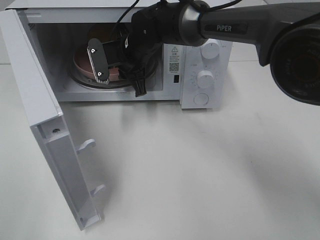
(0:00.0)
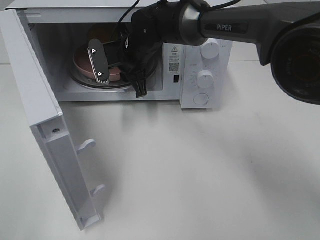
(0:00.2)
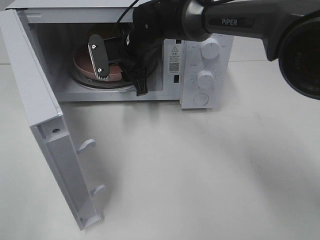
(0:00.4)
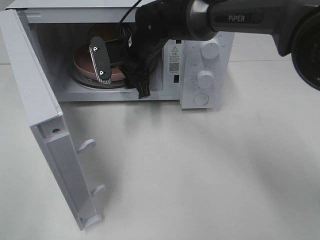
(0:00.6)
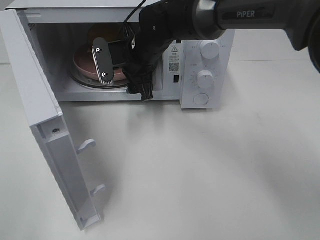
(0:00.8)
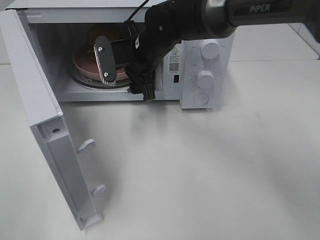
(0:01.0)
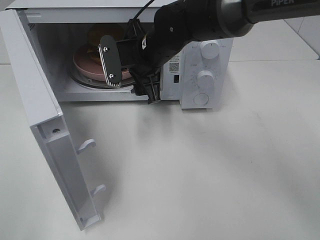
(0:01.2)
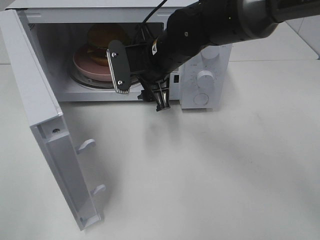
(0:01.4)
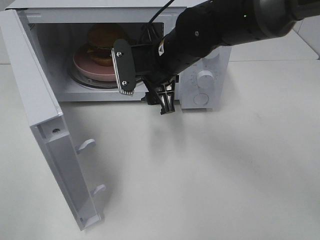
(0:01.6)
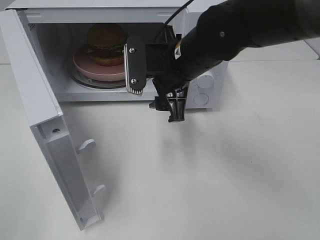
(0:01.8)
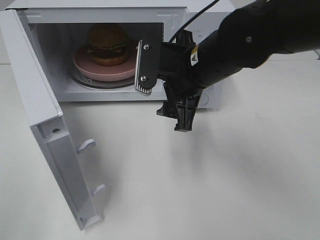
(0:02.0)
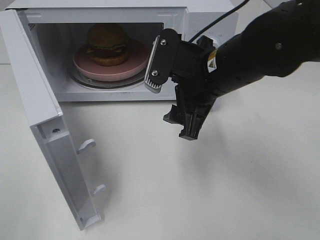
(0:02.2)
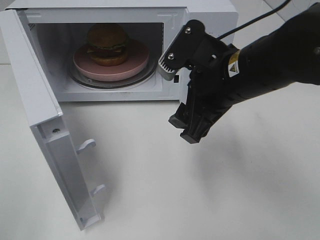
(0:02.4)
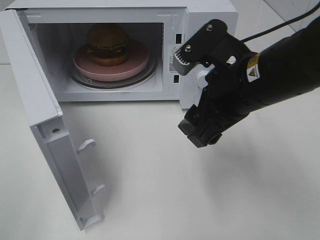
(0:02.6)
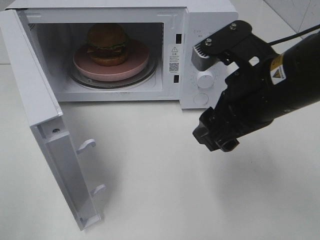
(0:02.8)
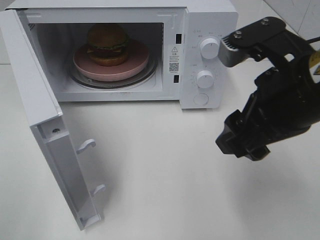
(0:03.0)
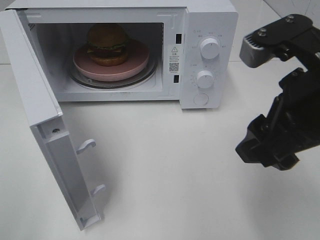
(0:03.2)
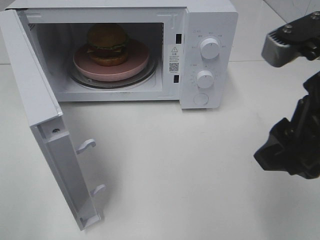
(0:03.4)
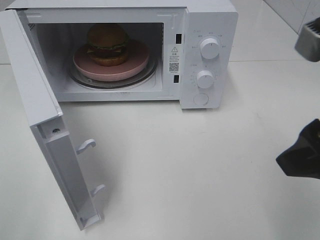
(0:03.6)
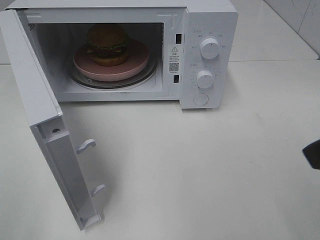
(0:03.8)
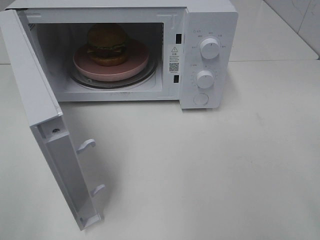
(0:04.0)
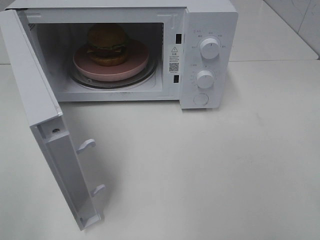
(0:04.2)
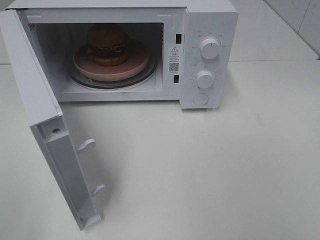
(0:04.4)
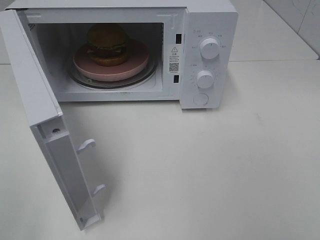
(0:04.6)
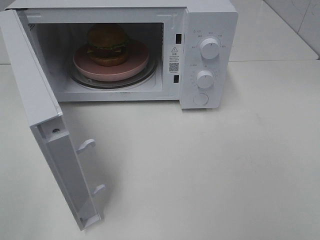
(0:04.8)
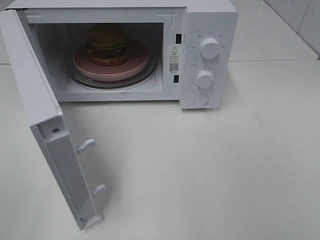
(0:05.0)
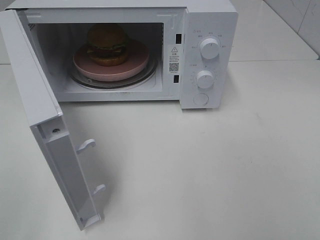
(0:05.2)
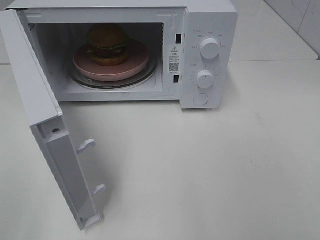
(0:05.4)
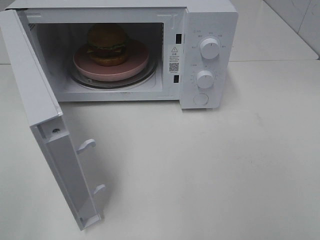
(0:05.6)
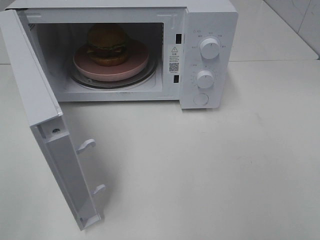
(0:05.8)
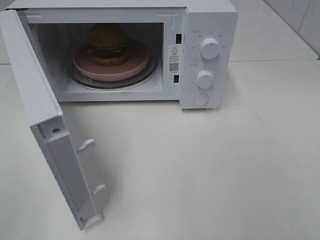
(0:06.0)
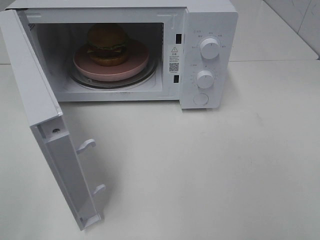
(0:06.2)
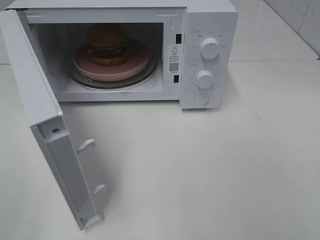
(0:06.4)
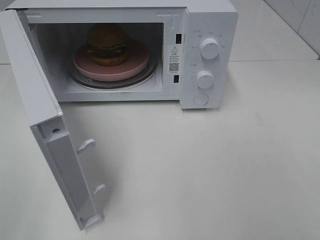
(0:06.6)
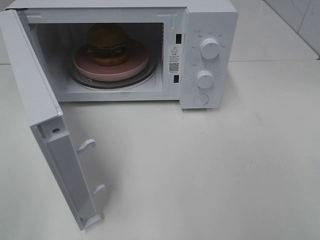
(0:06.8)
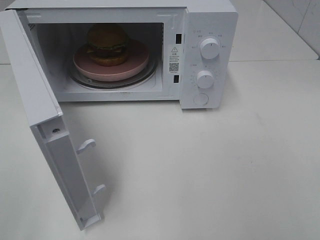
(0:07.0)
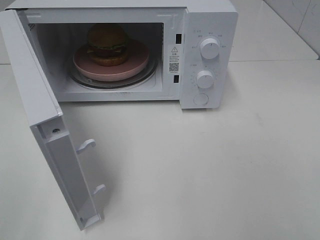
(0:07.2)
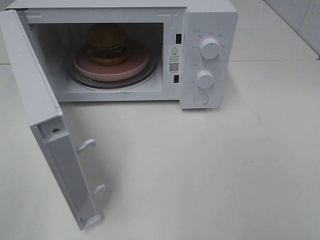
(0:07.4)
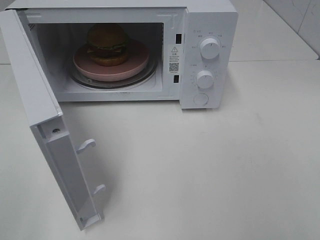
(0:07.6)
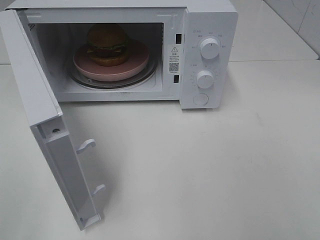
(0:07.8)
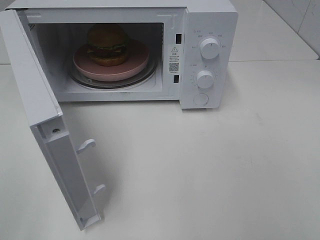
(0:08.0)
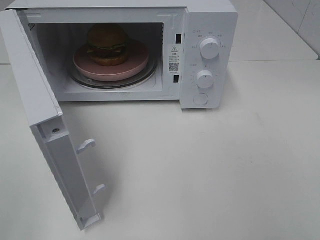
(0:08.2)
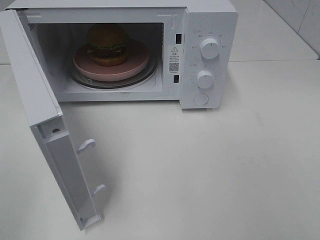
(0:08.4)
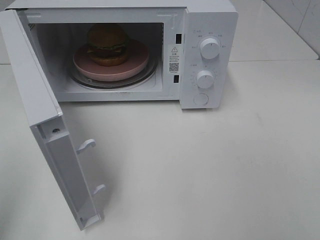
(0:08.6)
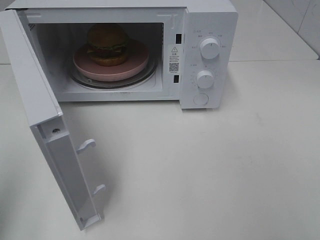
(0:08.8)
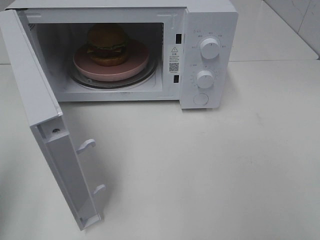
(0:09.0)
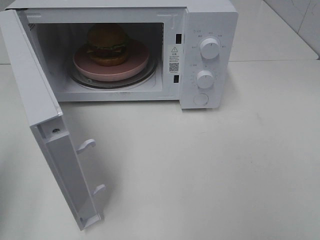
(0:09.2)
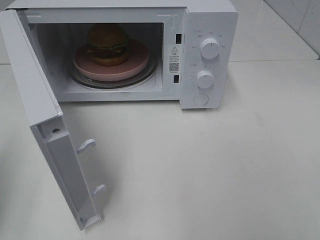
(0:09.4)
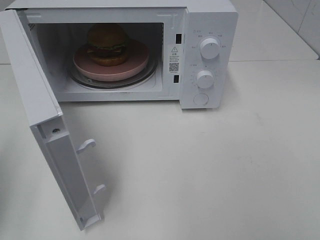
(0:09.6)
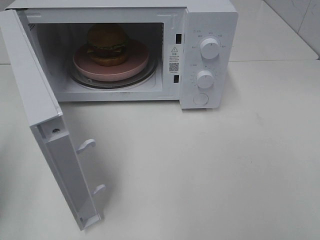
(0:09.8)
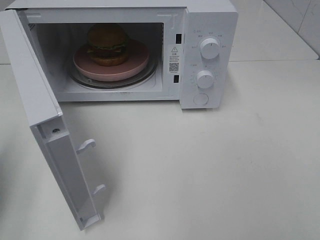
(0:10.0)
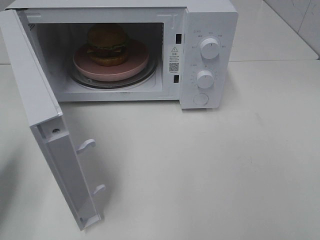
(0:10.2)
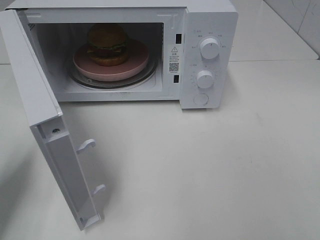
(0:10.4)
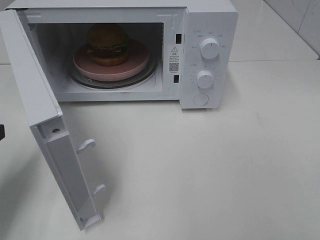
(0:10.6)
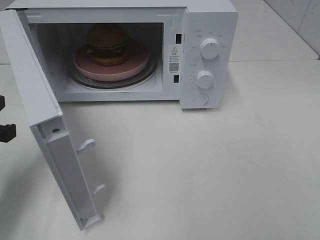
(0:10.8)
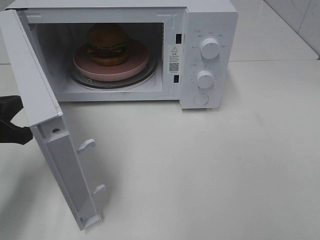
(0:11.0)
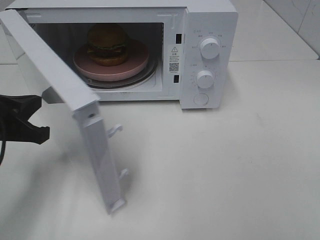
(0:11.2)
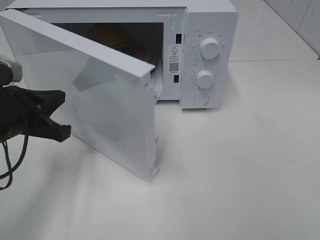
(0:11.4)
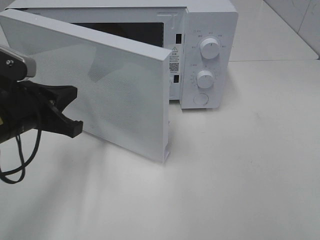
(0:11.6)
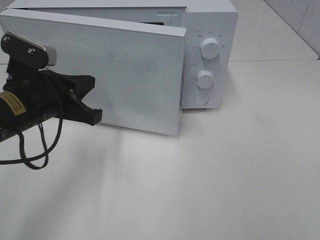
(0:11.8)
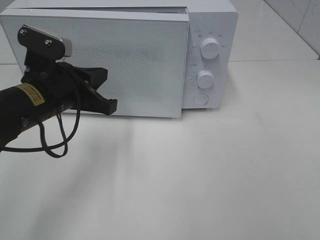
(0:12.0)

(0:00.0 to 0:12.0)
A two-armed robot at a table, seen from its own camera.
Task of the whole recording: Heat the burger.
0:00.0 - 0:01.6: The right gripper is displaced backward and to the right by about 10 cm, and opens its fingers.
0:01.6 - 0:03.0: The right gripper moves backward, to the right and upward, some 20 cm.
0:03.0 - 0:04.4: The right gripper travels backward, to the right and upward by some 20 cm.
0:06.0 - 0:07.6: The two grippers keep their place.
0:09.0 - 0:10.4: The left gripper travels downward and forward by roughly 15 cm.
0:10.4 - 0:12.0: The left gripper is displaced to the right and forward by some 15 cm.

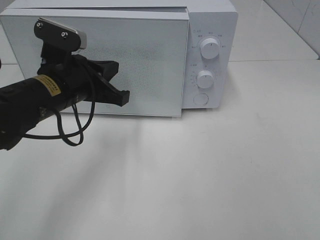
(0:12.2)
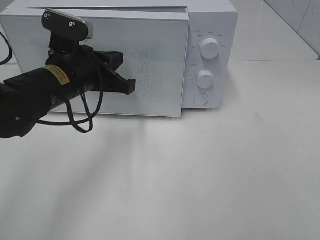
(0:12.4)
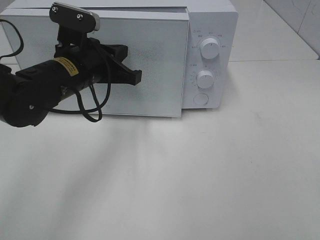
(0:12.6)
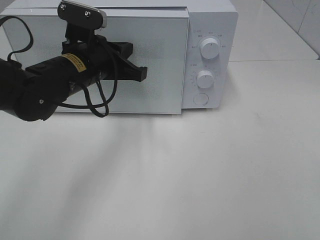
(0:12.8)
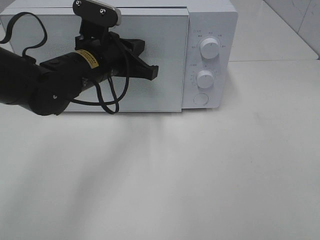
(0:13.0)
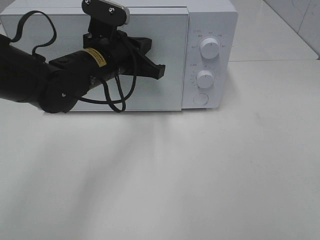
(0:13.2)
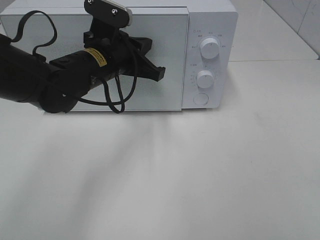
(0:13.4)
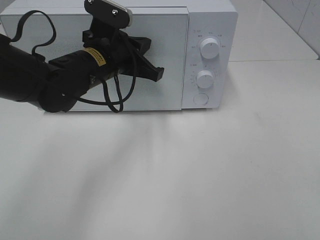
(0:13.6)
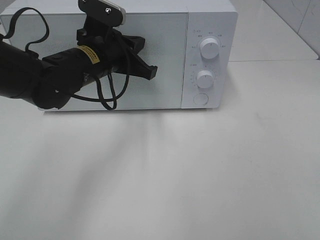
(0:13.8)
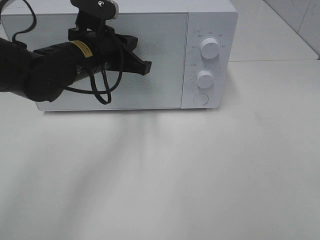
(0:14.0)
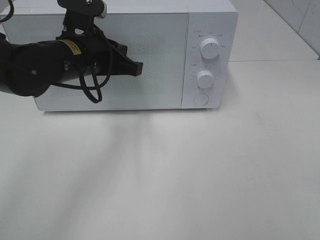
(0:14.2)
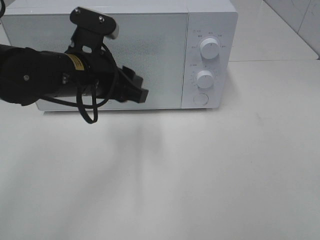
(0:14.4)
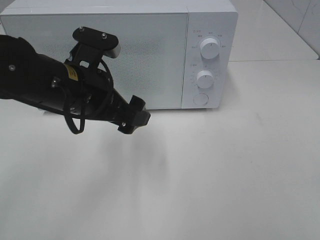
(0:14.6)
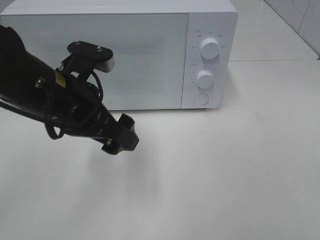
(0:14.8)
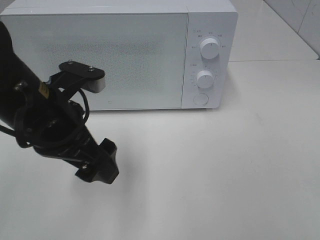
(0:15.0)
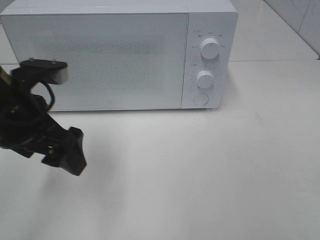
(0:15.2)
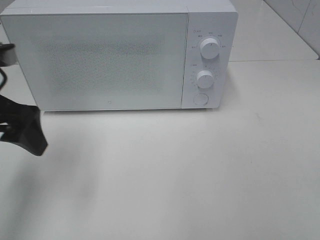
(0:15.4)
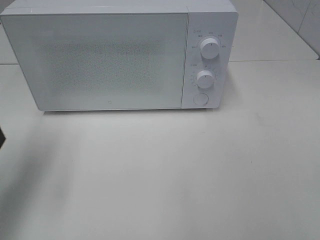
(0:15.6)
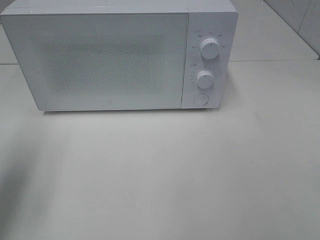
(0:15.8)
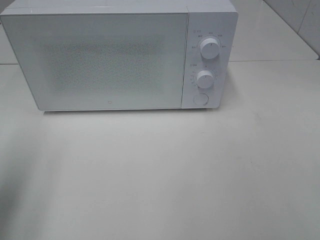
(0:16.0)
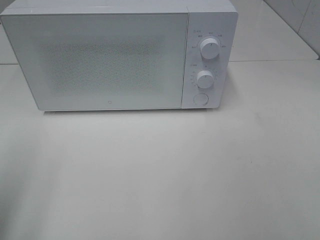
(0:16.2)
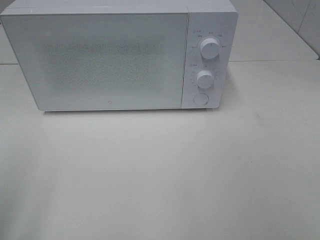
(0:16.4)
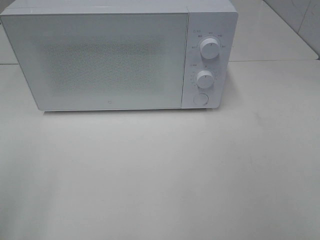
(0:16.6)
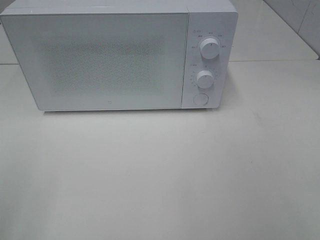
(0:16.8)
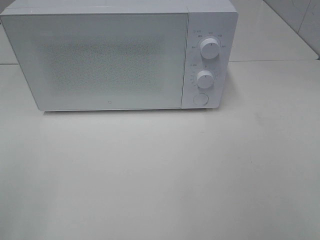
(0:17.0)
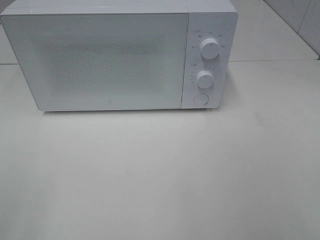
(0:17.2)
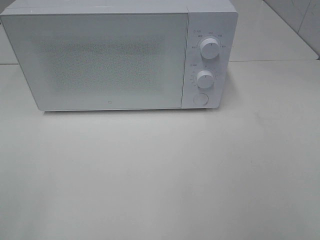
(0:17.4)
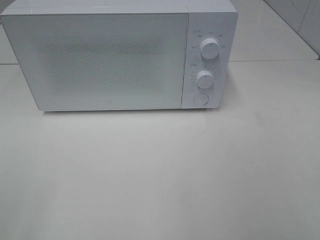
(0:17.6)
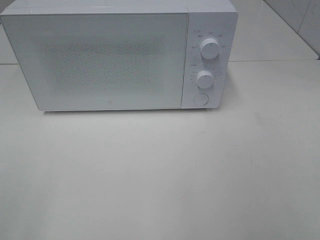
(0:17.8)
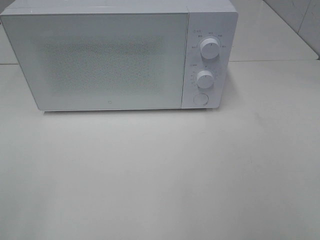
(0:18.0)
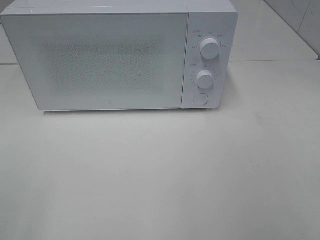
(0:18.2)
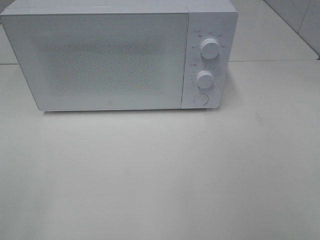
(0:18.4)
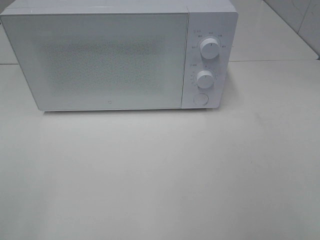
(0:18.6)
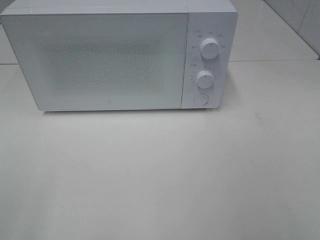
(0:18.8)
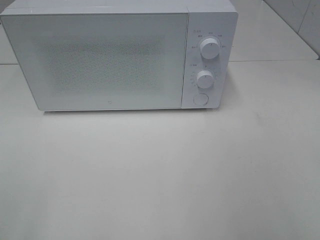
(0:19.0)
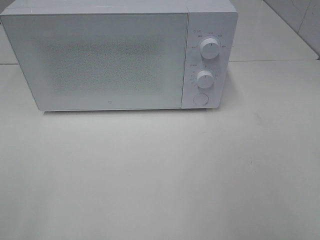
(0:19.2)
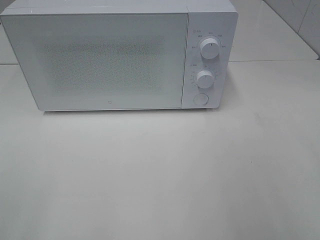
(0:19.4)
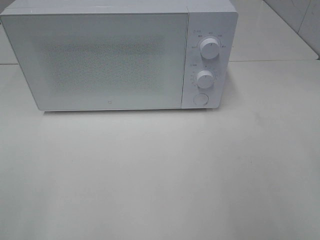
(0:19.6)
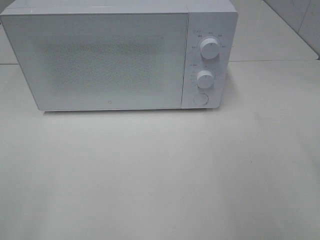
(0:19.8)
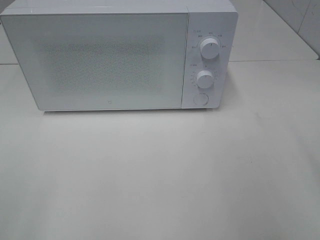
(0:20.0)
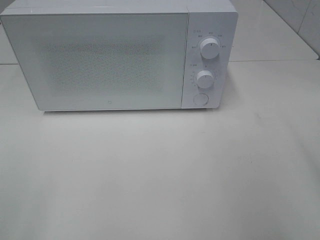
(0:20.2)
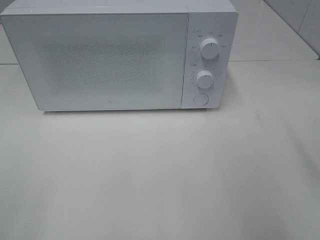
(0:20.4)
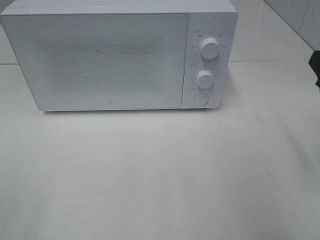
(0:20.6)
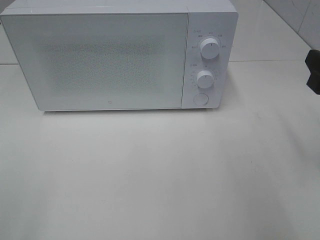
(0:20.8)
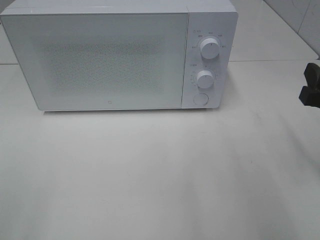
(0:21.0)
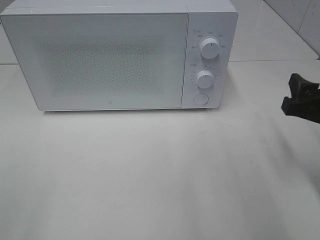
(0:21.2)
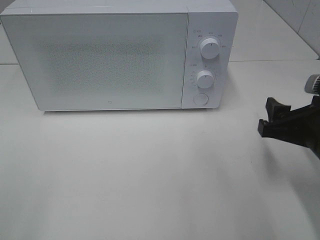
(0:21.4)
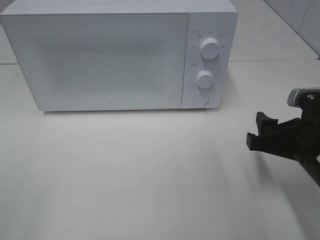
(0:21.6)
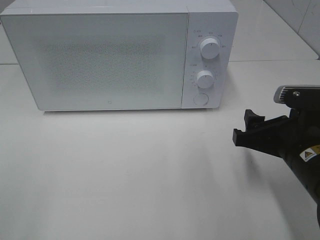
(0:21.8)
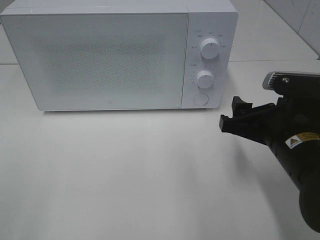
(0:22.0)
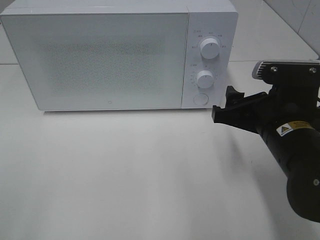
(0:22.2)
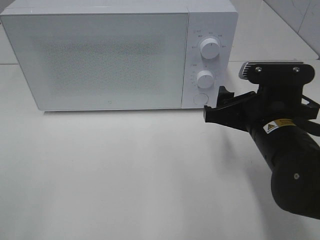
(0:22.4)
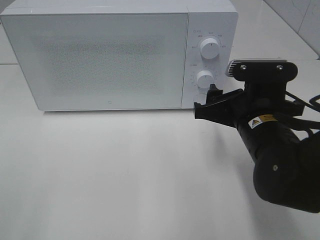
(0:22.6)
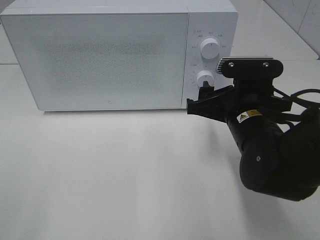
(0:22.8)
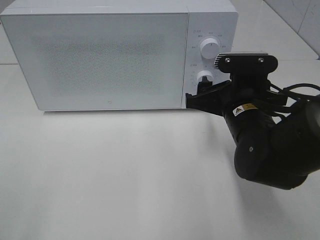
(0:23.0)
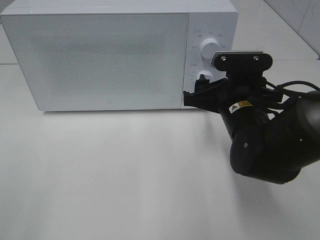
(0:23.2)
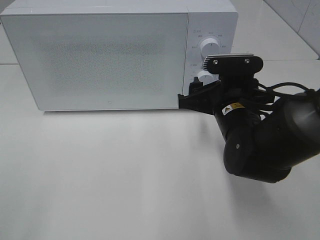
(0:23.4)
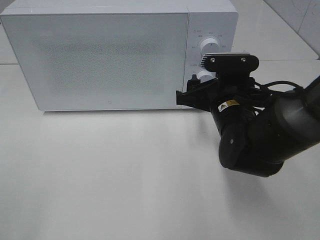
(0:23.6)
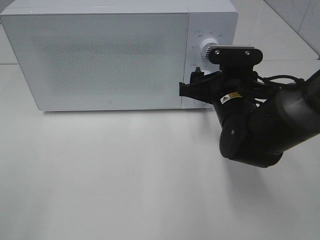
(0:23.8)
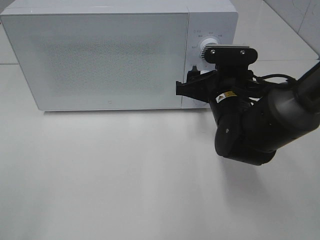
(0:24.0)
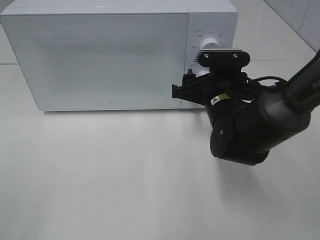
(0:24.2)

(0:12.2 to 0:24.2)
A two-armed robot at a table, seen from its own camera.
Task of the whole recording: Heat the burger.
Step, 0:12.2 - 0:14.2: Left hand: close the microwave door.
0:12.2 - 0:13.8: The left gripper shifts approximately 5 cm forward.
0:13.8 - 0:15.2: The left gripper travels backward and to the left by approximately 15 cm, and opens up.
0:15.2 - 0:16.6: The left gripper shifts some 25 cm backward and to the left.
0:19.8 - 0:21.2: The right gripper shifts about 15 cm downward and forward.
0:21.2 - 0:22.6: The right gripper travels to the left by some 10 cm.
0:22.6 - 0:24.2: The right gripper travels forward by about 10 cm.
